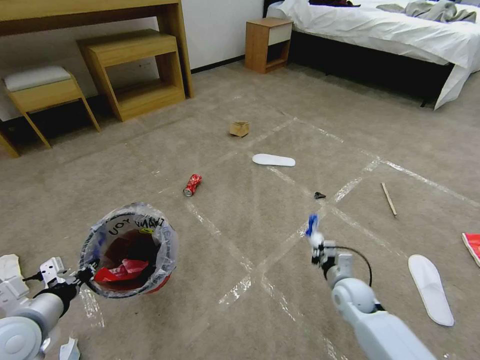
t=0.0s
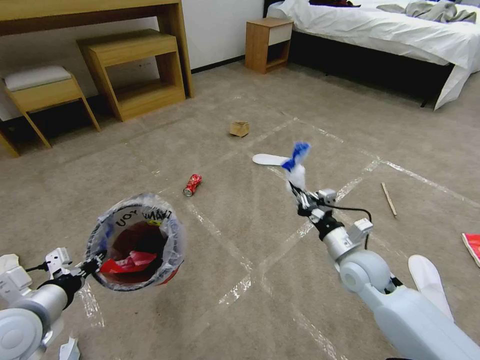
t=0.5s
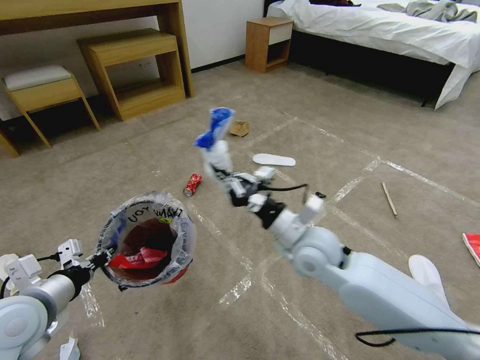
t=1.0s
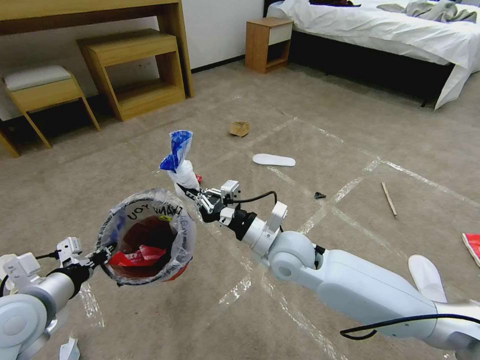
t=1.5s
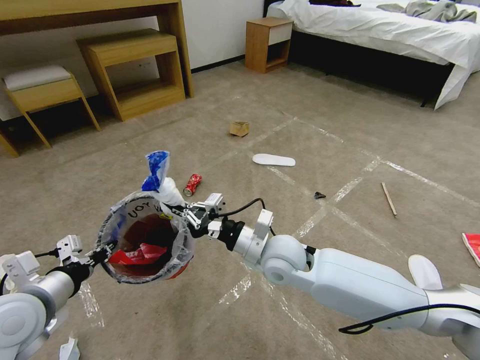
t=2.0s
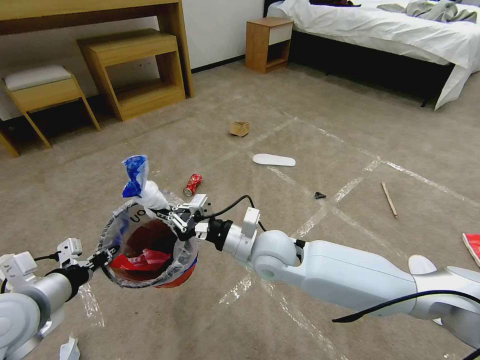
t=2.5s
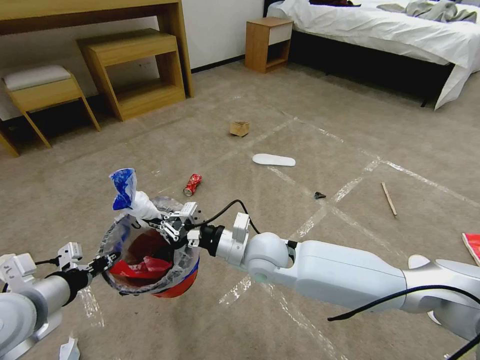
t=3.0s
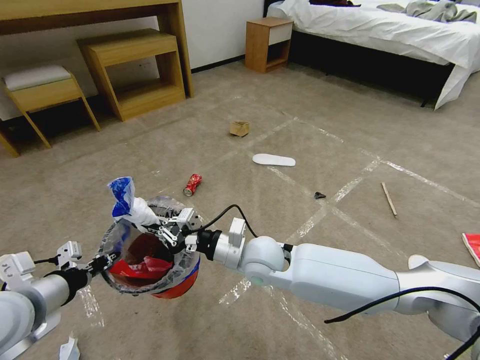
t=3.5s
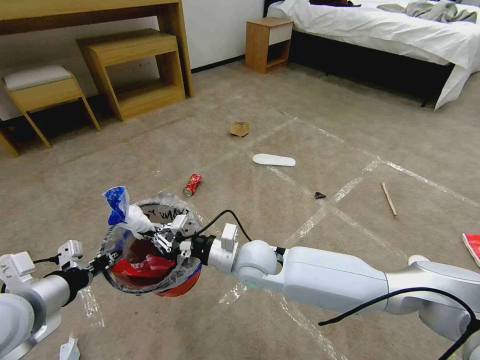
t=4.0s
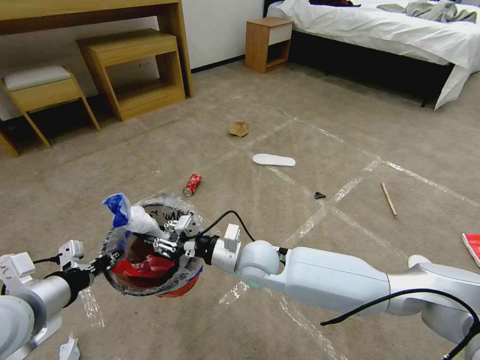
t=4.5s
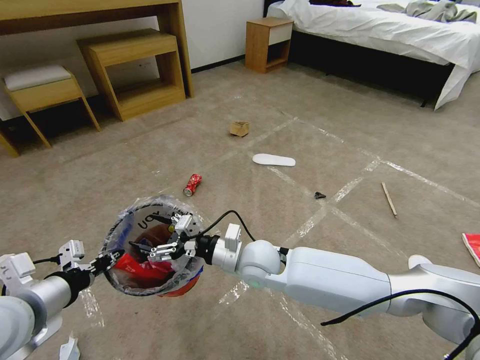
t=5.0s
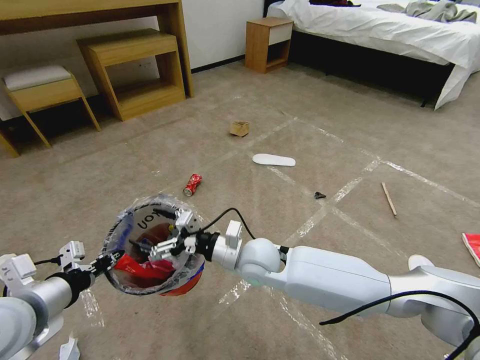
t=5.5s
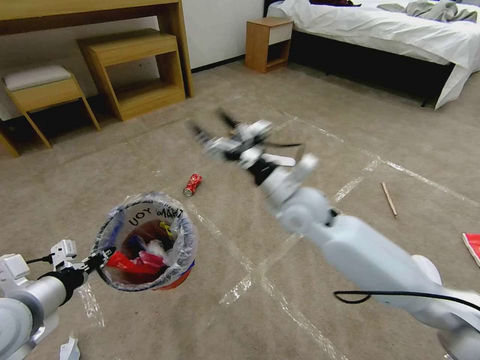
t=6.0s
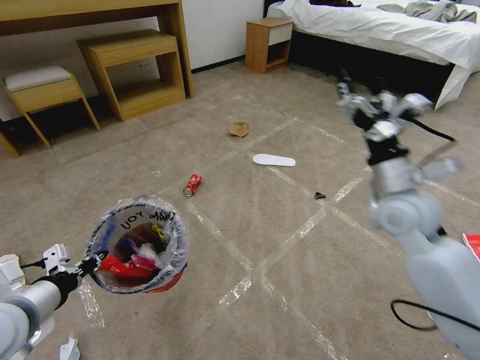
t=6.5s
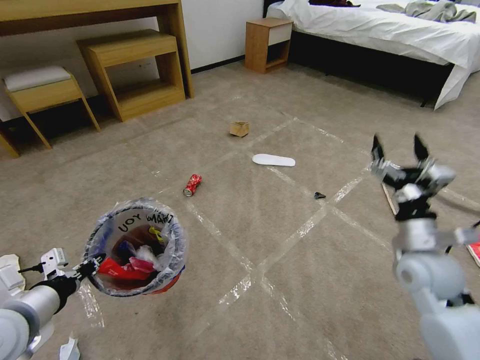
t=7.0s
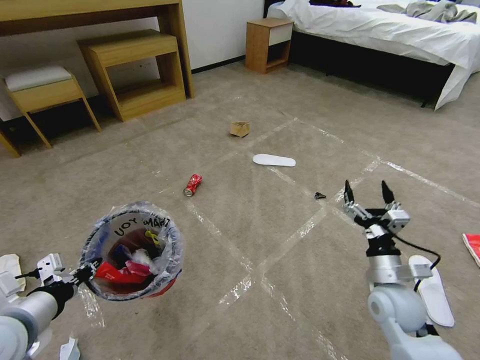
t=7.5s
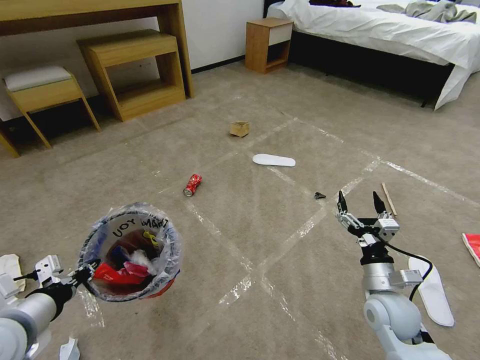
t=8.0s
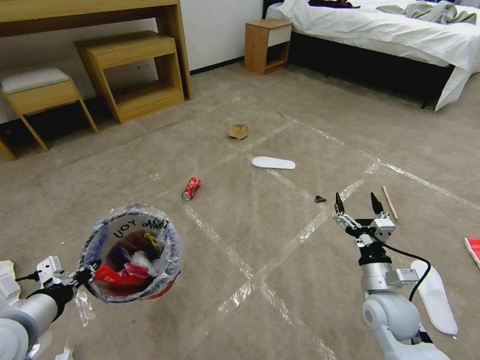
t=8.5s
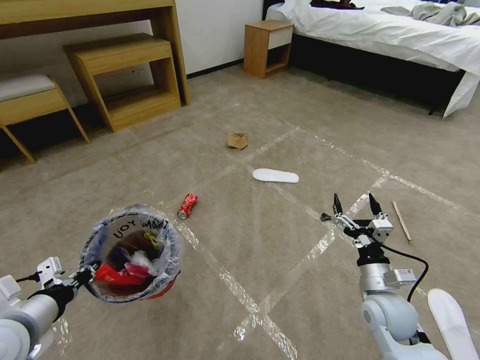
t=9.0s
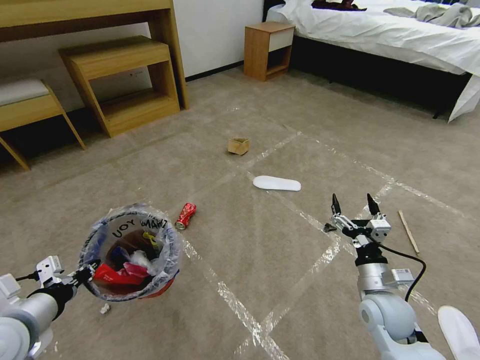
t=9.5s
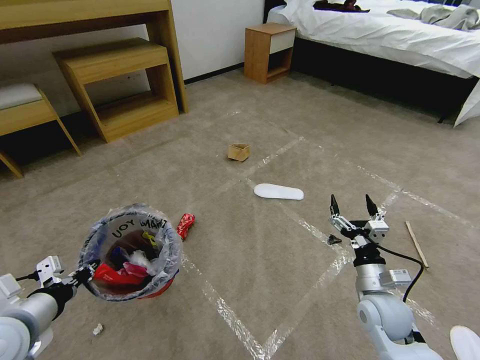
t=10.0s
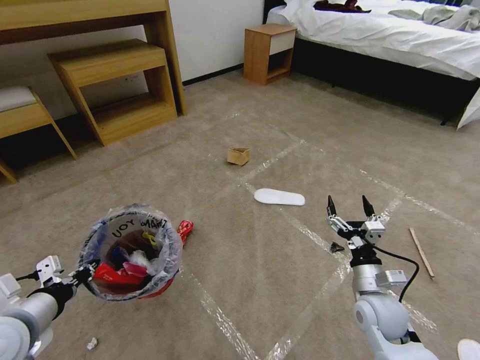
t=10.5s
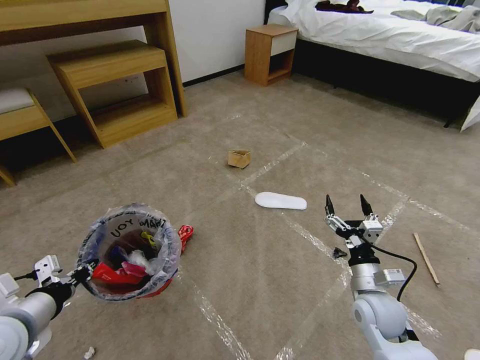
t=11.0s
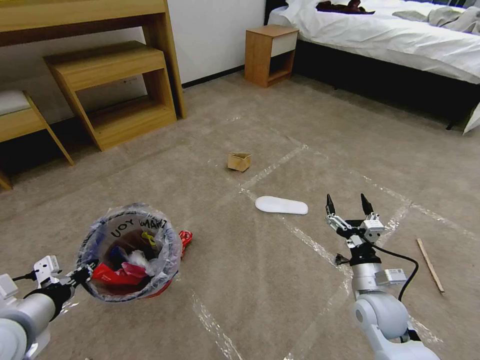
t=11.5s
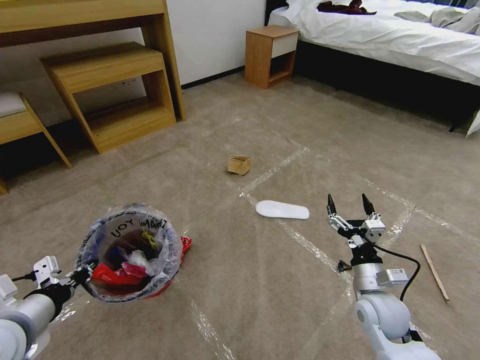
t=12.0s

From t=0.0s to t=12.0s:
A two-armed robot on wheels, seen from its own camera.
Task of the whole recording: Pick up the trash bin and place the garbage on the floor into it.
From t=0.0s to t=2.0s: The right gripper travels to the left and upward by approximately 30 cm. The left gripper changes place by approximately 5 cm.
From t=2.0s to t=4.0s: The right gripper shifts some 5 cm to the left.
From t=4.0s to t=6.0s: The right gripper is displaced upward, to the right and forward by roughly 15 cm, and opens up.
From t=6.0s to t=8.0s: The right gripper travels to the right, downward and backward by approximately 30 cm.
From t=10.0s to t=12.0s: The two grippers keep their place.

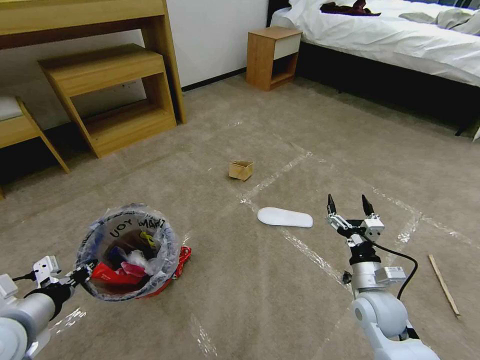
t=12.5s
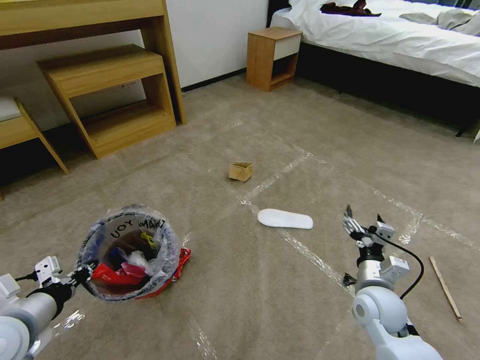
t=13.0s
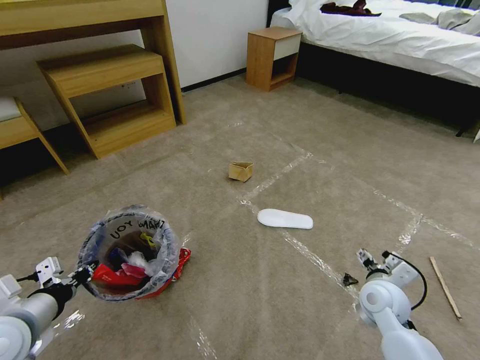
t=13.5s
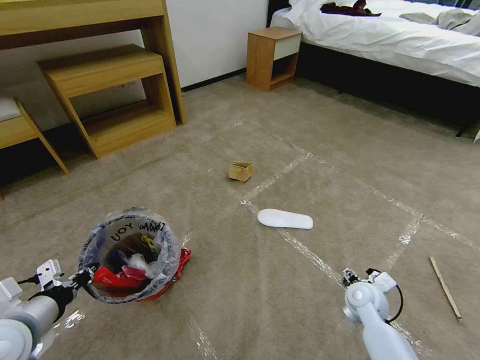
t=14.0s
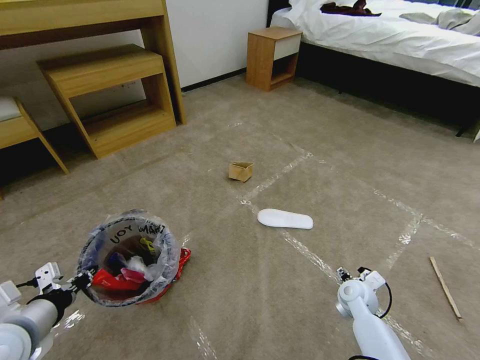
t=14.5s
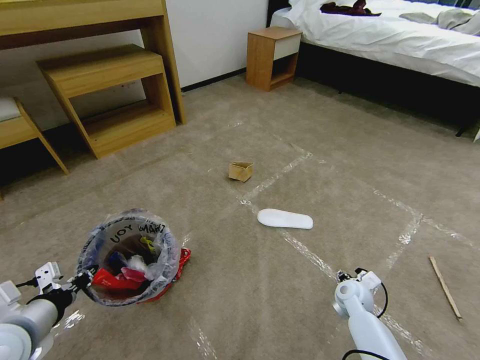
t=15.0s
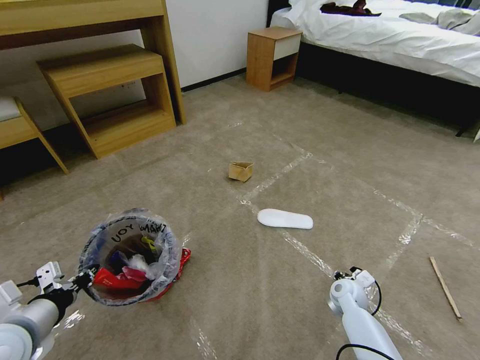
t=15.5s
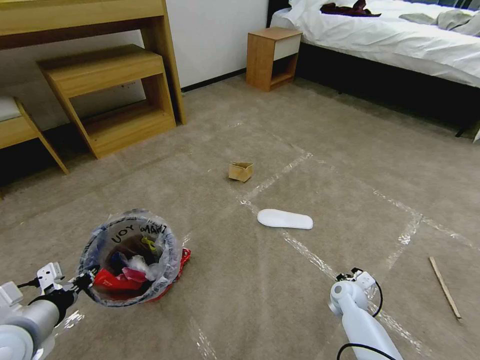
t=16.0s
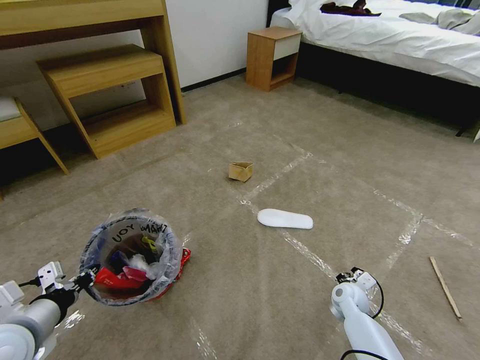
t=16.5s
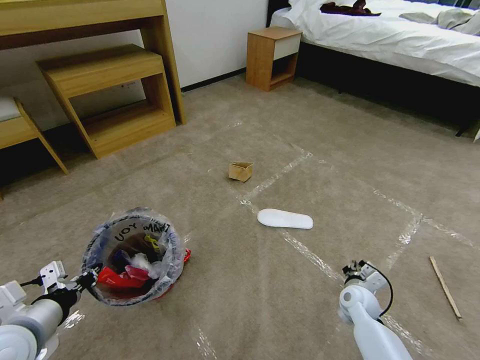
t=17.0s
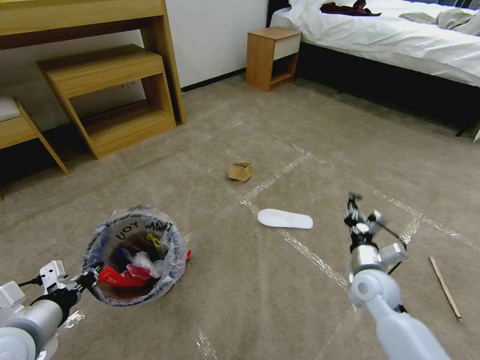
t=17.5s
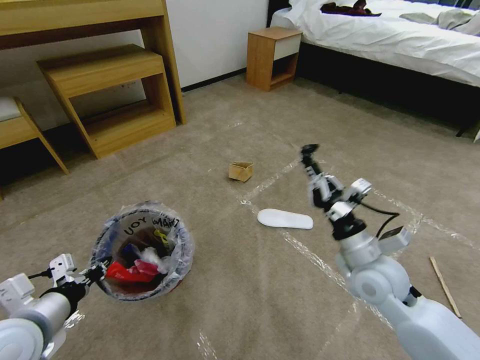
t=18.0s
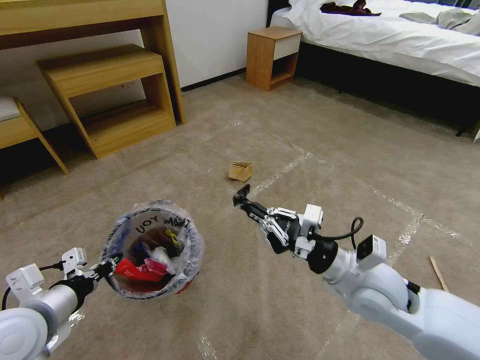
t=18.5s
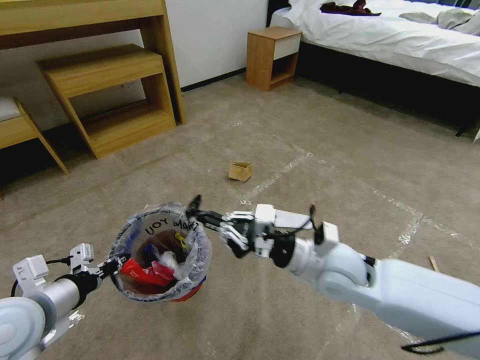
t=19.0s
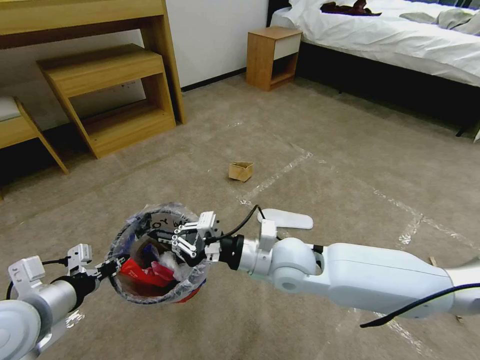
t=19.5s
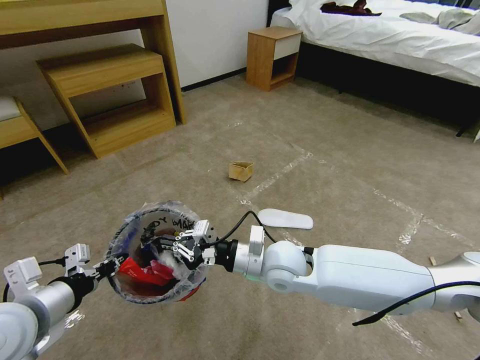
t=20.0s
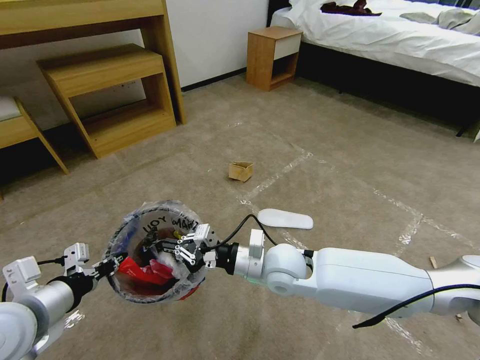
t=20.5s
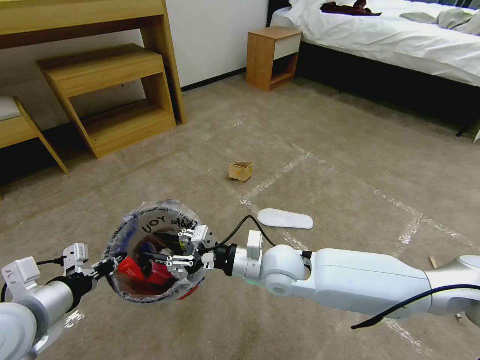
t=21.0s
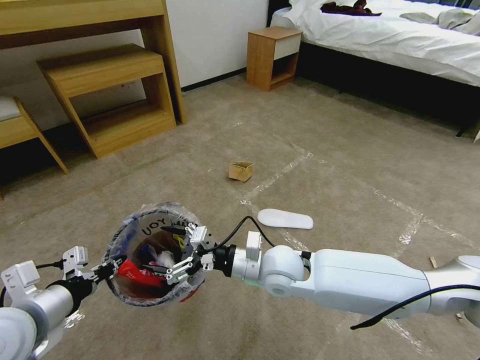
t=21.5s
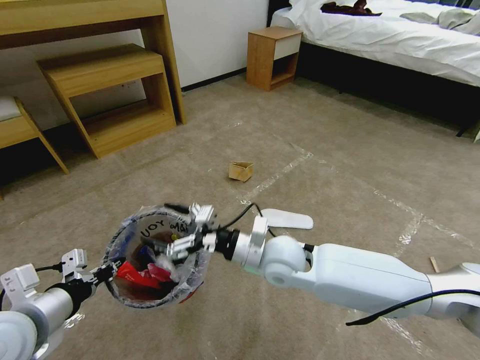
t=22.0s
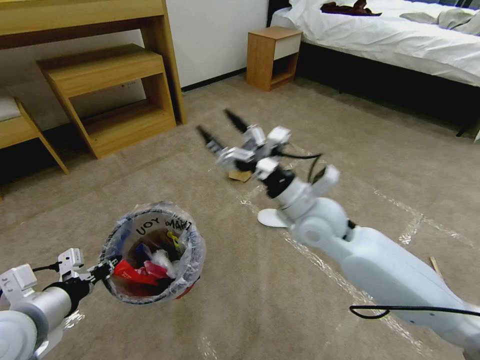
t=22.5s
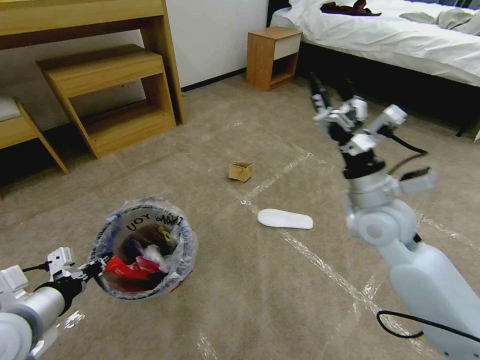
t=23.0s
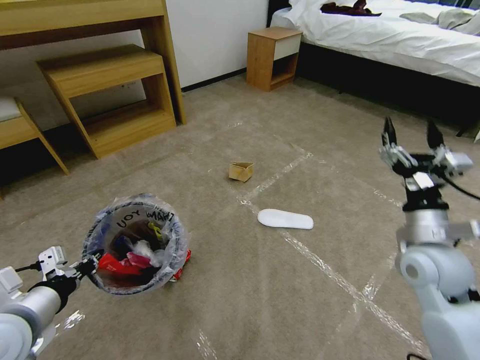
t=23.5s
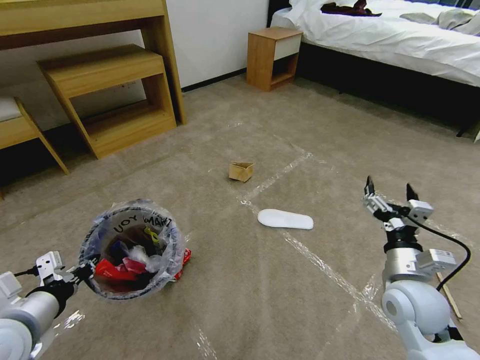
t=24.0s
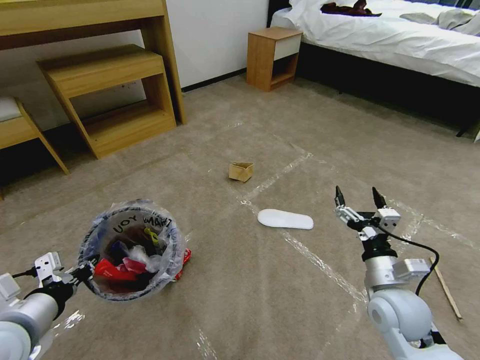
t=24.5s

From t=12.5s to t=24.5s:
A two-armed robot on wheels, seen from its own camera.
Task of the whole recording: Pick up the trash bin and place the garbage on the floor into it.
From t=12.5s to t=14.5s: The right gripper heads downward and forward, covering approximately 10 cm.
From t=14.5s to t=16.5s: The right gripper closes.
From t=16.5s to t=18.5s: The right gripper moves upward, some 25 cm.
From t=18.5s to t=20.5s: The right gripper travels to the left and forward by some 15 cm.
From t=20.5s to t=22.5s: The right gripper moves upward and to the right, approximately 10 cm, and opens.
From t=22.5s to t=24.5s: The right gripper goes approximately 25 cm to the right, downward and backward.

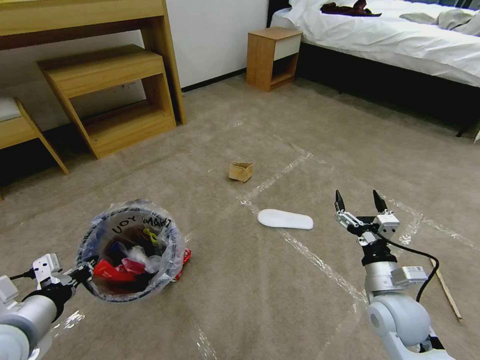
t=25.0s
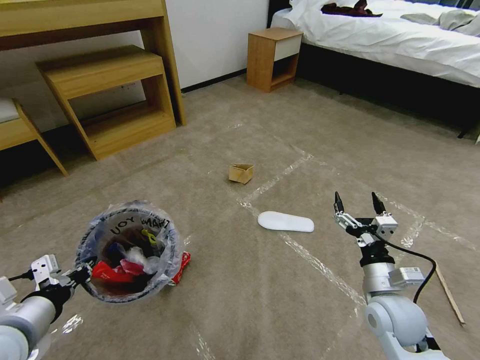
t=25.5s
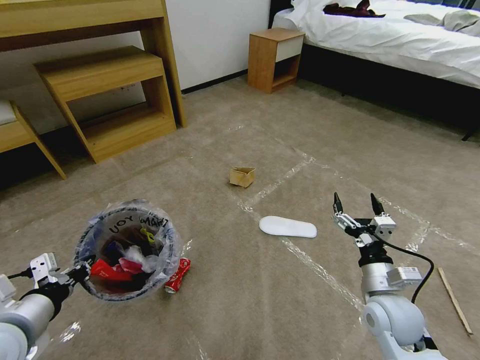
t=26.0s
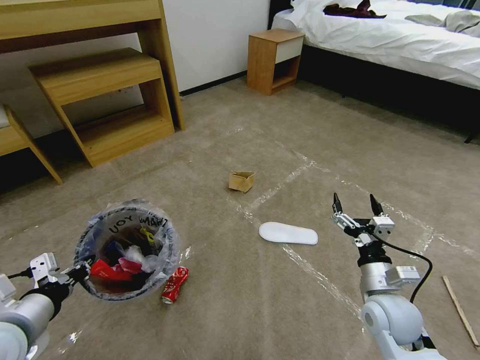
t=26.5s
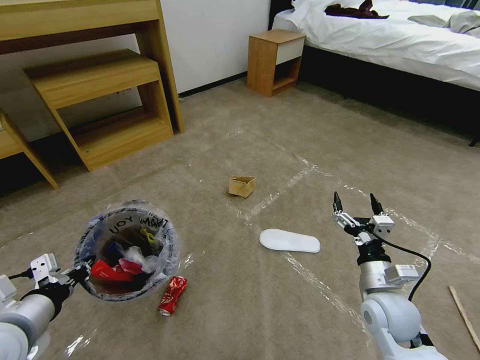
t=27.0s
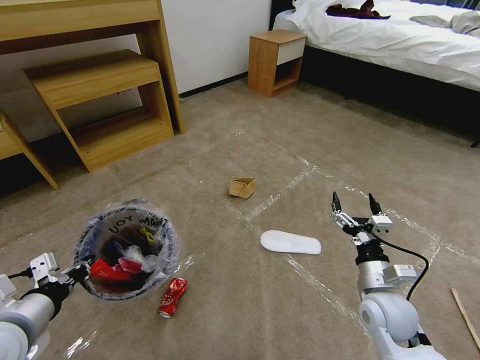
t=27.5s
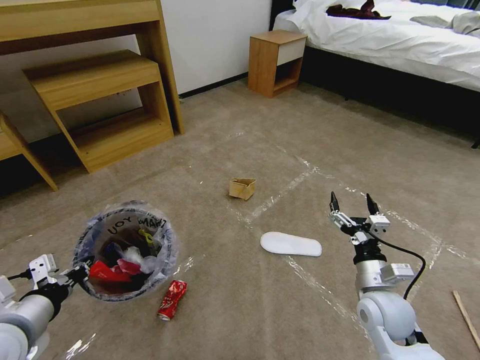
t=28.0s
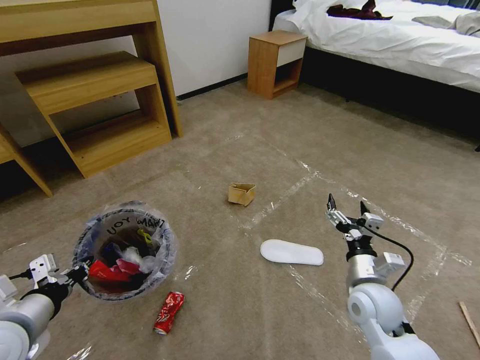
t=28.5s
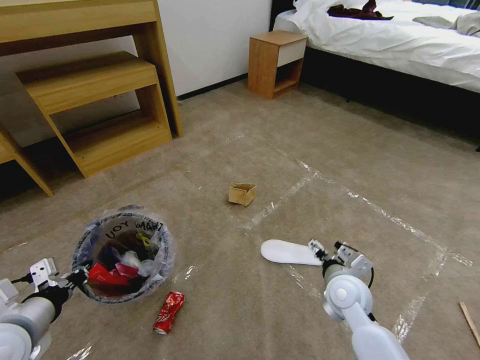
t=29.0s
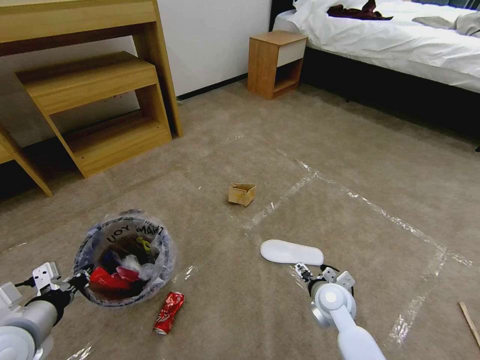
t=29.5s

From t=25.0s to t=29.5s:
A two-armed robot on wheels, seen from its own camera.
Task of the whole recording: Pick up the trash bin and place the garbage on the floor into it.
From t=27.0s to t=29.5s: The right gripper shifts some 10 cm downward and to the left.
